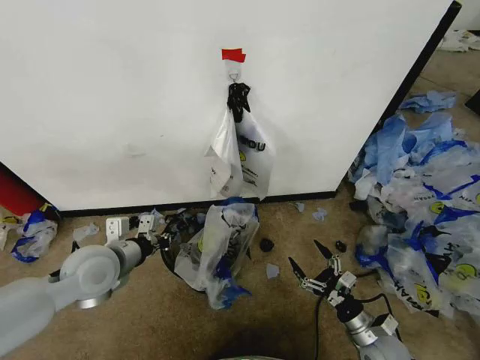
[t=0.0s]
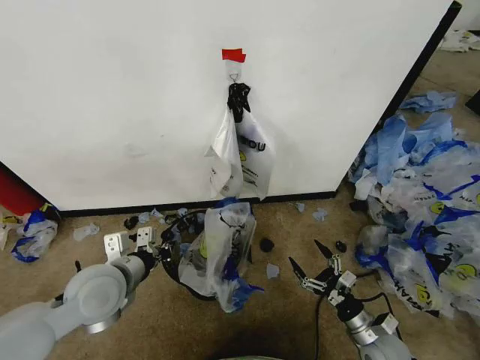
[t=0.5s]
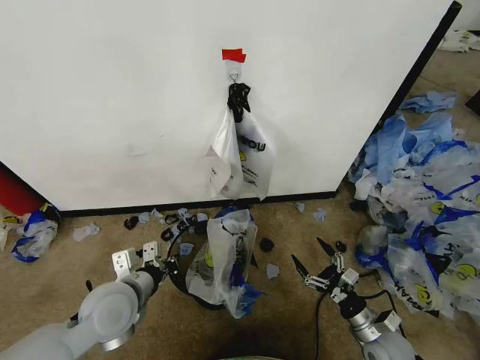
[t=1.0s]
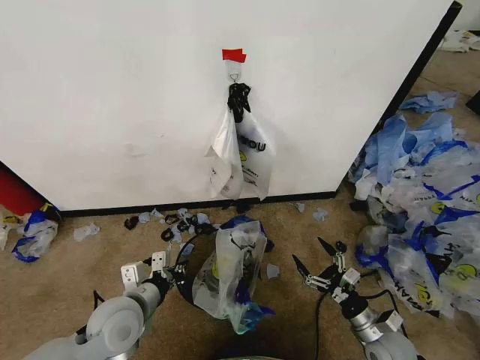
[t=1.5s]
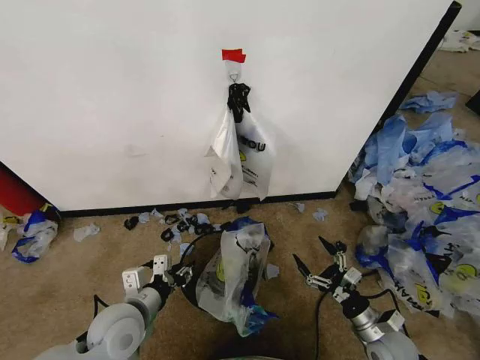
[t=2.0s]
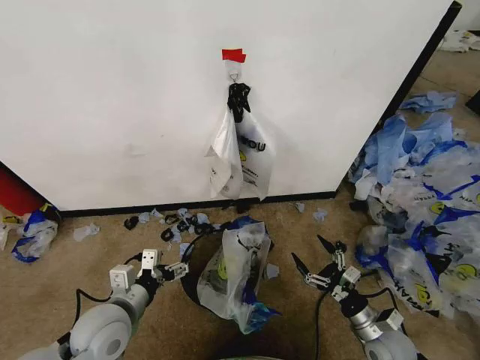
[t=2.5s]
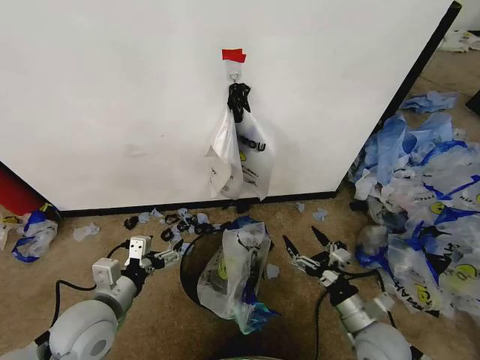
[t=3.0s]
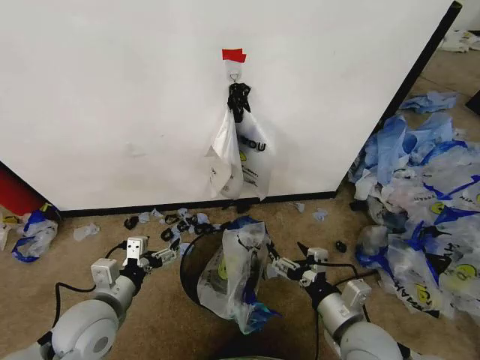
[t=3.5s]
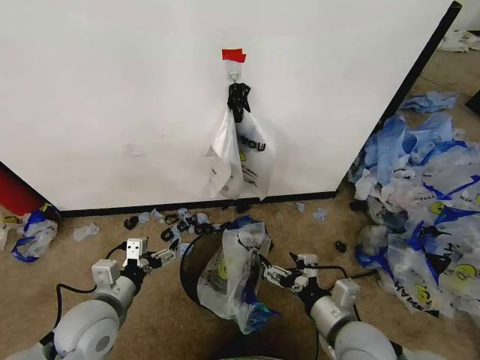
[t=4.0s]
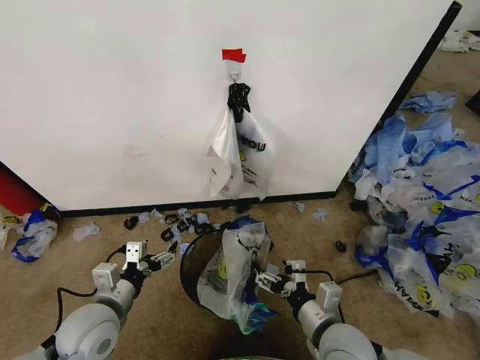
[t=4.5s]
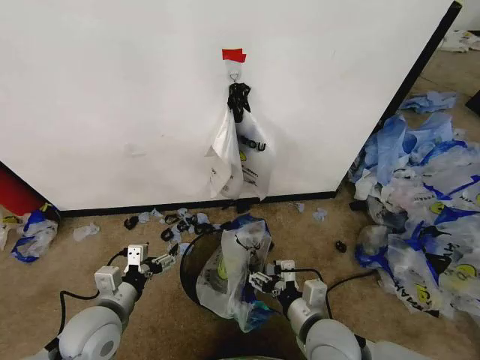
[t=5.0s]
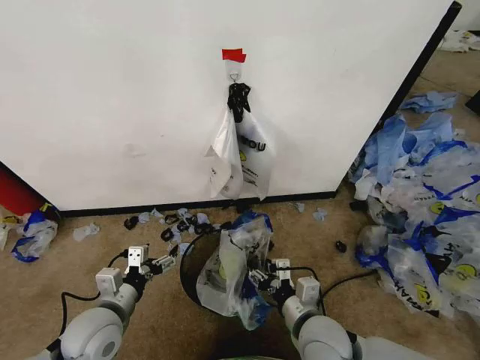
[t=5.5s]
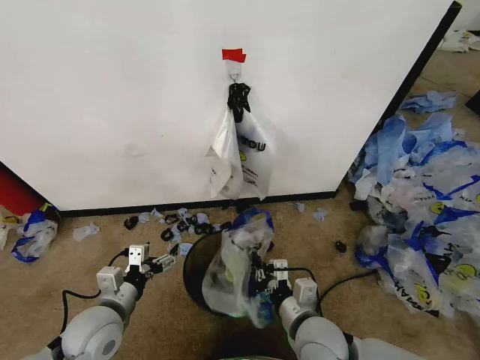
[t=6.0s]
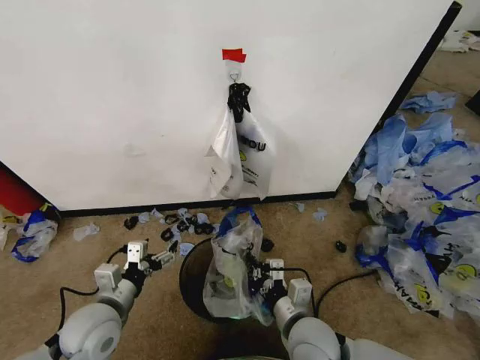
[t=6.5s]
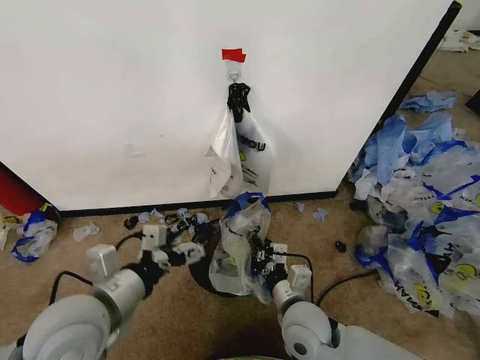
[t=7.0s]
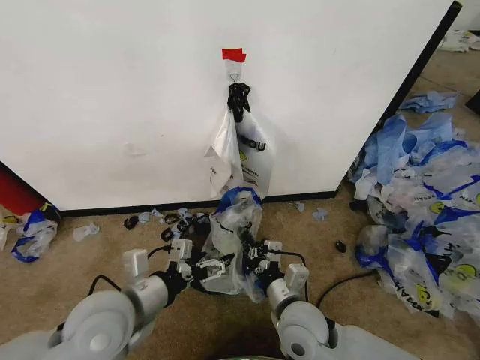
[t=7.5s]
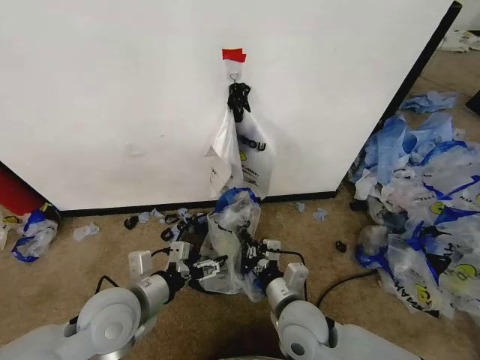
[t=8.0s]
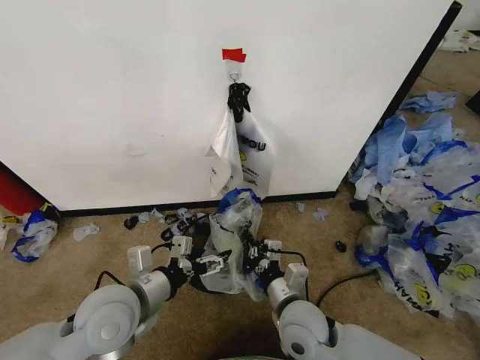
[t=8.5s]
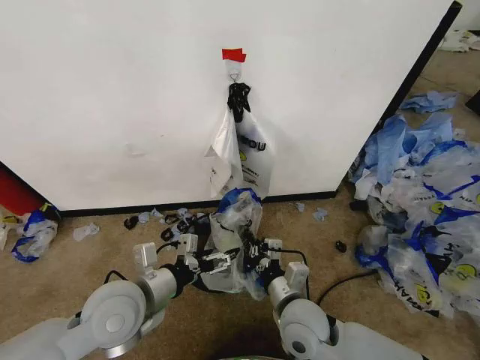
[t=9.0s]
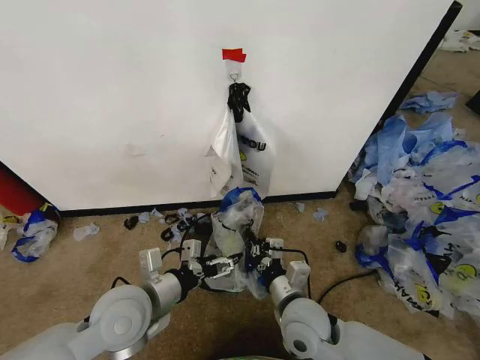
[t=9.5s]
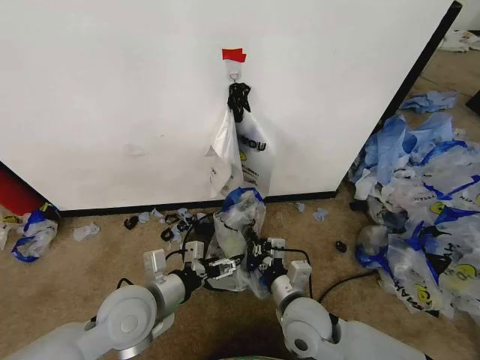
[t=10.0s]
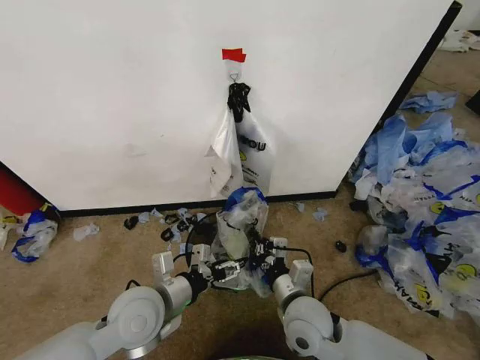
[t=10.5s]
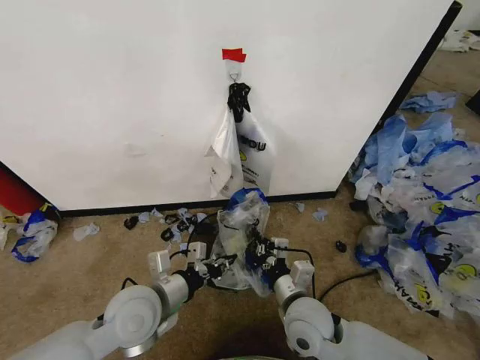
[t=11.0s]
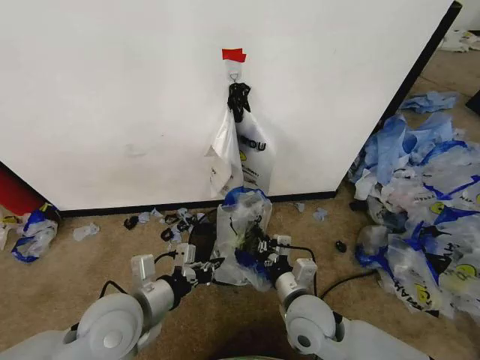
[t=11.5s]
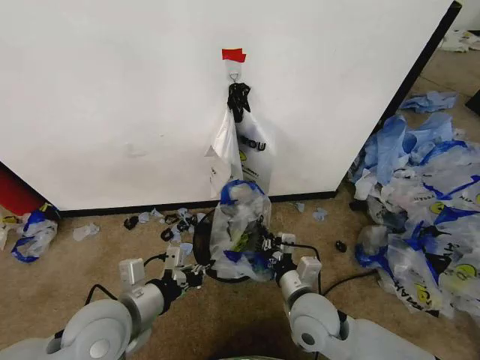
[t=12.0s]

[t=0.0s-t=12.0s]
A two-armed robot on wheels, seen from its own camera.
Task of the whole recording: Pick up the garbage bag from the wall and place it over the trash bin.
t=0.0s to t=2.0s: The left gripper goes roughly 10 cm downward and backward, and opens up.
t=2.0s to t=4.0s: The right gripper shifts approximately 20 cm upward and to the left. Meanwhile the left gripper opens up.
t=4.0s to t=6.0s: The right gripper heads to the left, covering about 5 cm, and closes up.
t=6.0s to t=8.0s: The left gripper shifts approximately 10 cm upward and to the right.
t=8.0s to t=10.0s: There are only small adjustments of the grippers.
t=10.0s to t=12.0s: The left gripper closes its fingers.

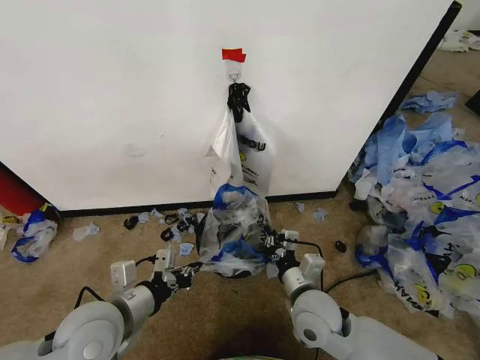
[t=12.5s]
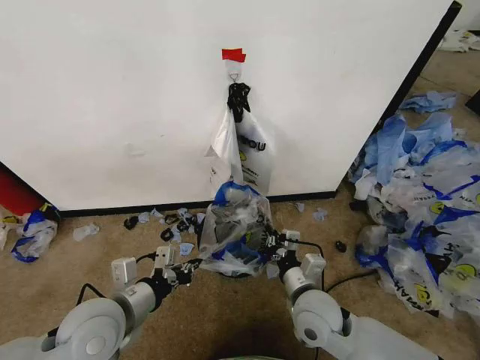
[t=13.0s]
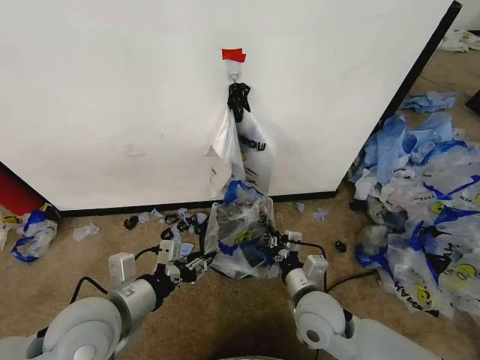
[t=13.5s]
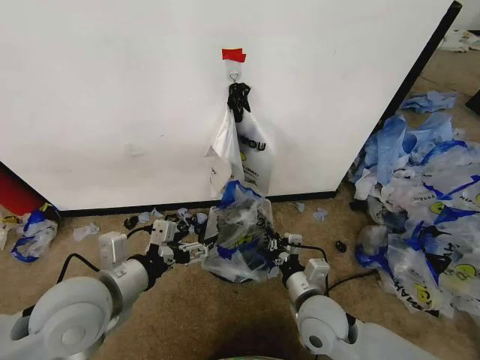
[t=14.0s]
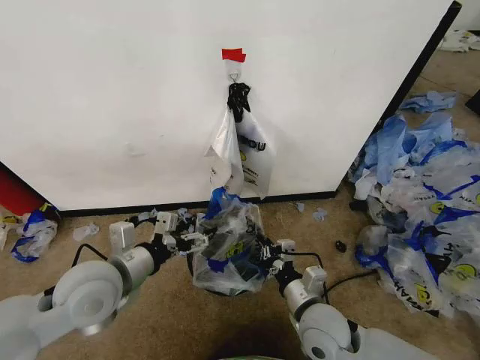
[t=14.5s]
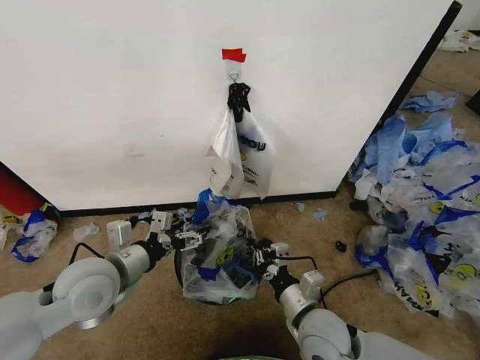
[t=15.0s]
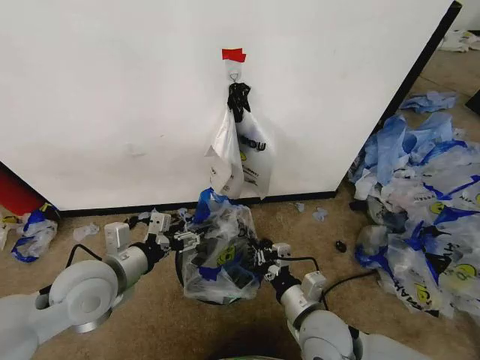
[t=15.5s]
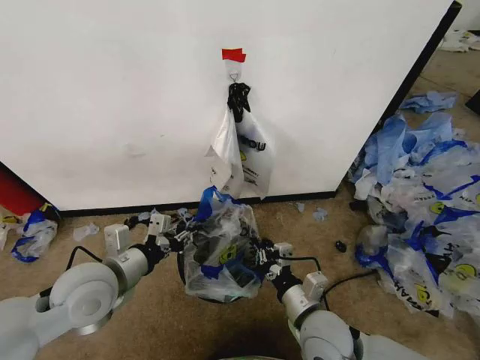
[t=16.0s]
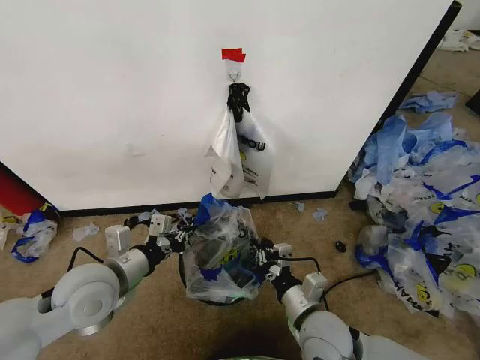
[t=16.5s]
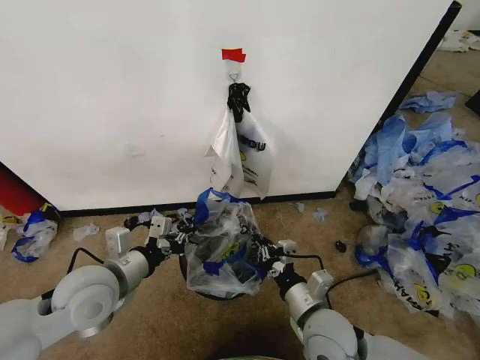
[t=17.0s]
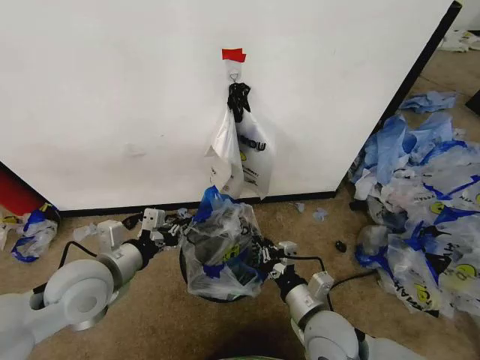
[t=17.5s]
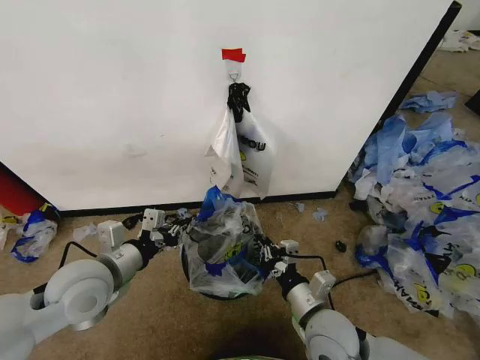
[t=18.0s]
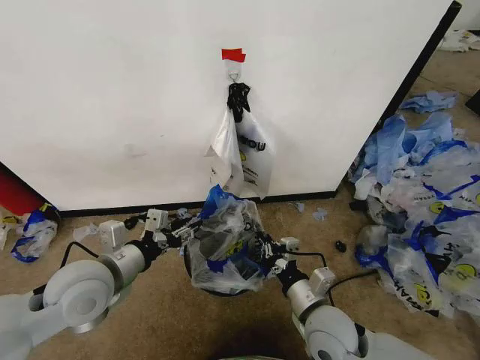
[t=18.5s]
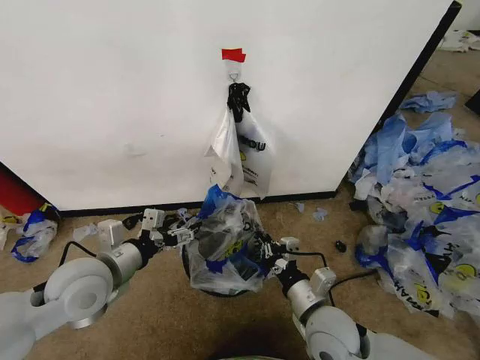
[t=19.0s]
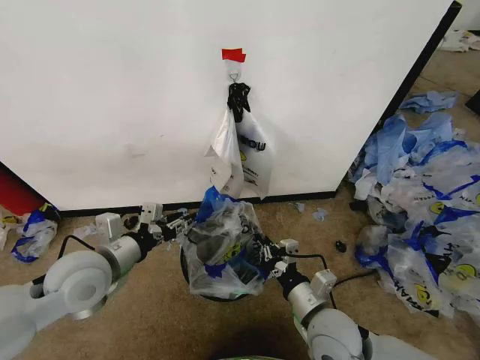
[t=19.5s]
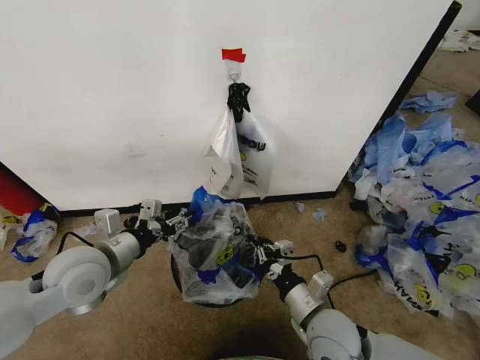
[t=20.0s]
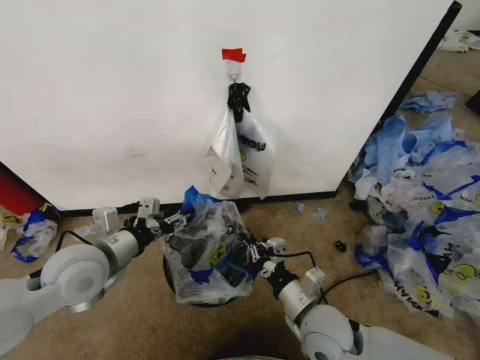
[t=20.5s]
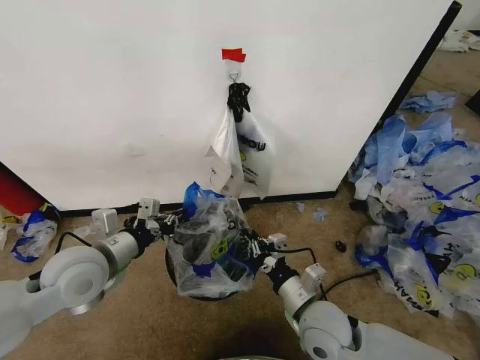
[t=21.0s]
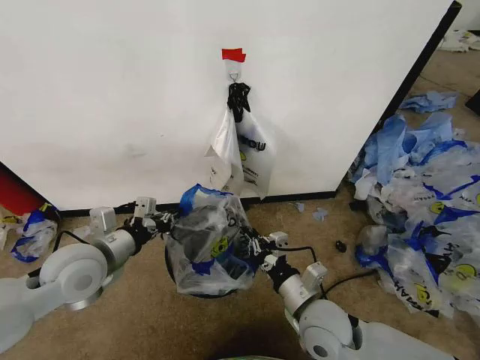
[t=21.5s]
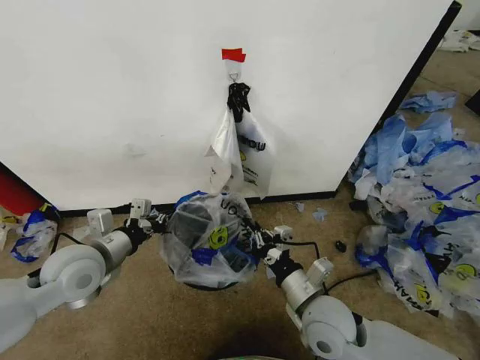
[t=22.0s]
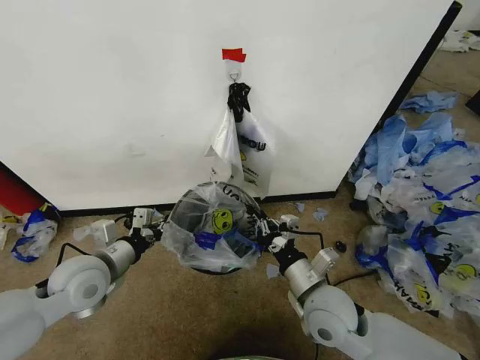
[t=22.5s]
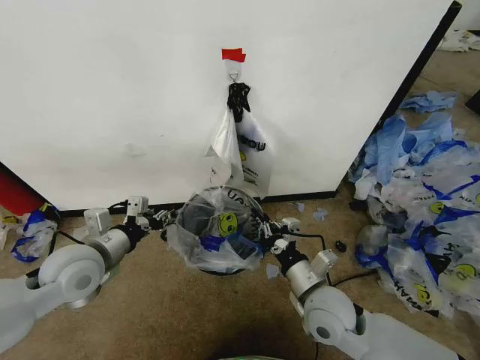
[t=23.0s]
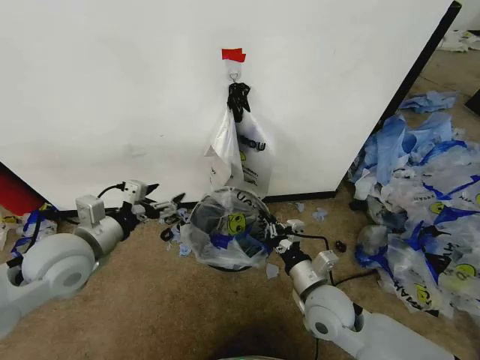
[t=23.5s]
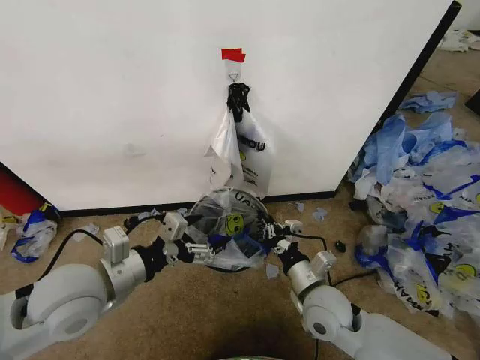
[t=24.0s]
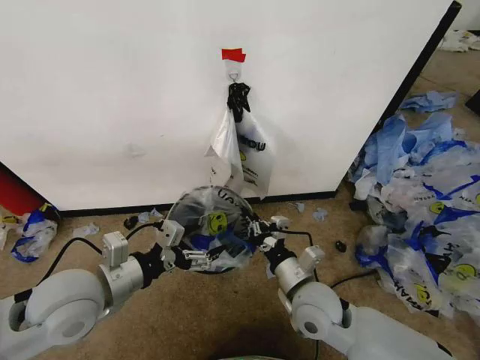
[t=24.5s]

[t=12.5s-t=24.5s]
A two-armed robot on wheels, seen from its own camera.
Task of the whole recording: Pick up the garbage bag from the wall and place it over the trash bin.
t=12.5s to t=14.5s: The left gripper goes approximately 5 cm forward, and opens.
t=14.5s to t=16.5s: The left gripper closes up.
t=16.5s to t=18.5s: The left gripper opens up.
t=18.5s to t=20.5s: The left gripper opens and closes again.
t=20.5s to t=22.5s: The left gripper closes its fingers.
t=22.5s to t=24.5s: The left gripper heads backward and upward, covering roughly 10 cm, and opens its fingers.

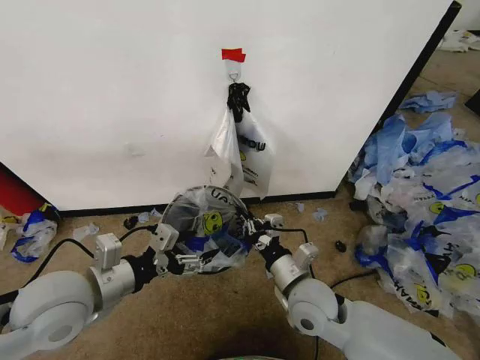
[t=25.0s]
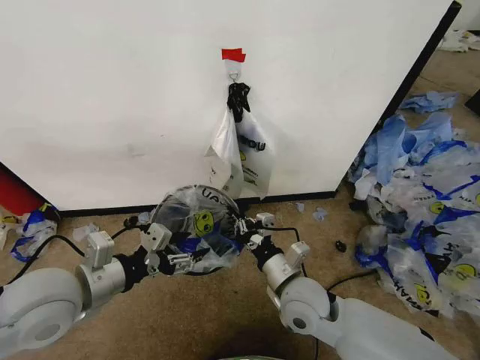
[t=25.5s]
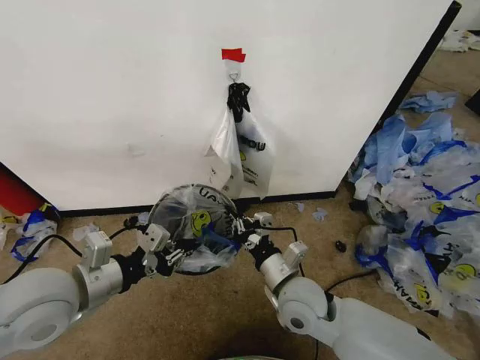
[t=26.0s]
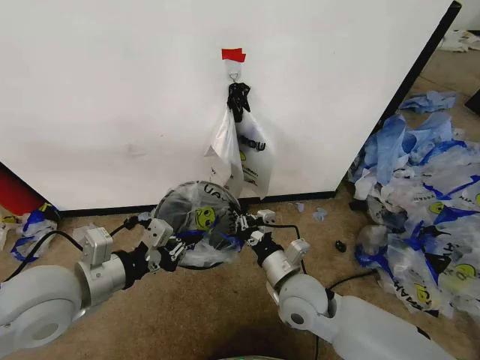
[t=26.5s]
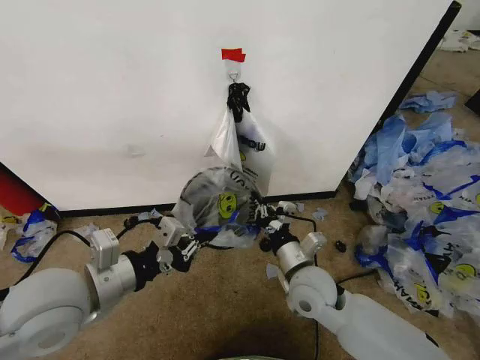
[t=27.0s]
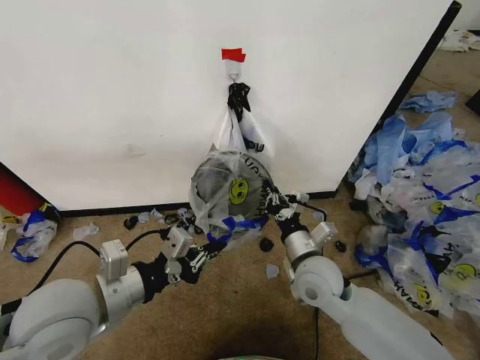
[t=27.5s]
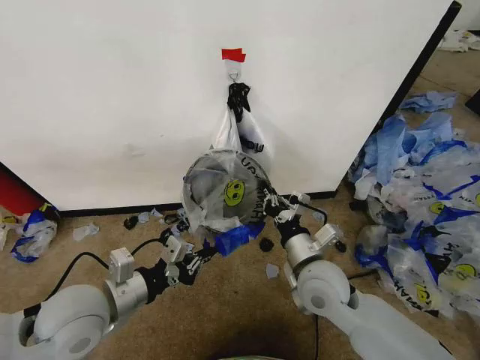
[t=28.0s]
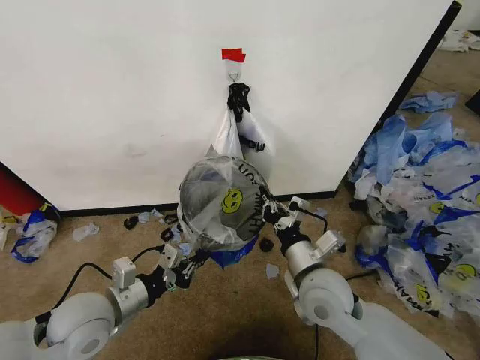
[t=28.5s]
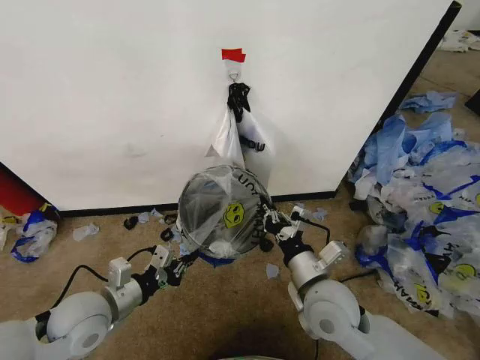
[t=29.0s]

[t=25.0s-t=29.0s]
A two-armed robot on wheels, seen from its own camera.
Task of the whole recording: Pick up the garbage bag from the wall and place it over the trash bin.
t=25.0s to t=27.0s: The left gripper closes up.
t=27.0s to t=29.0s: The right gripper shifts by about 5 cm. The left gripper is displaced downward by roughly 15 cm.
